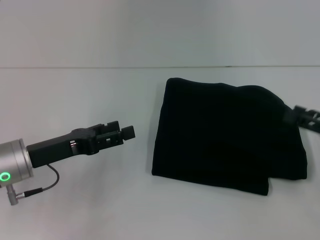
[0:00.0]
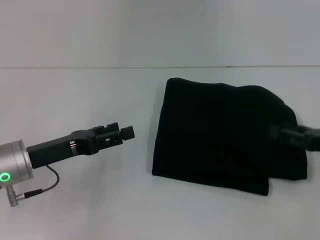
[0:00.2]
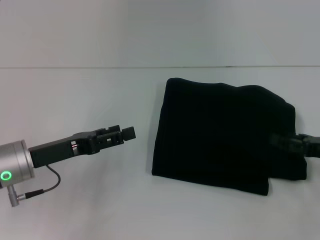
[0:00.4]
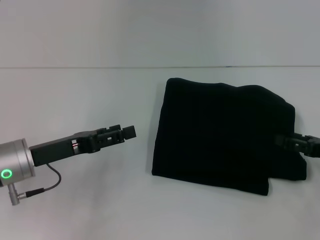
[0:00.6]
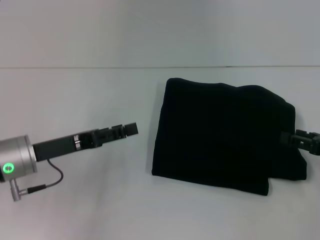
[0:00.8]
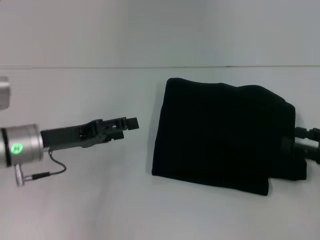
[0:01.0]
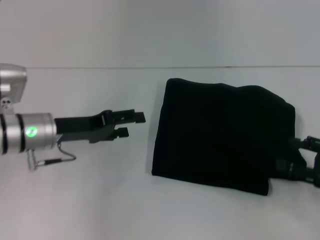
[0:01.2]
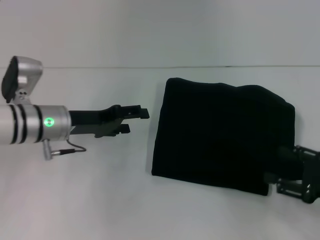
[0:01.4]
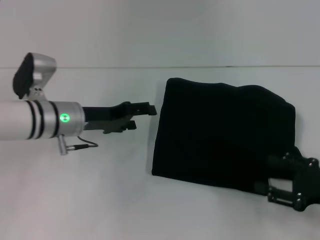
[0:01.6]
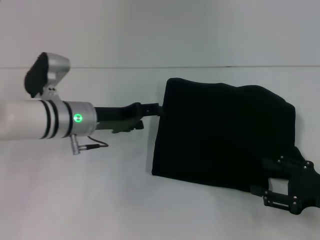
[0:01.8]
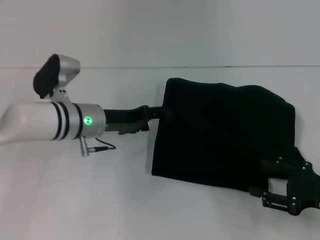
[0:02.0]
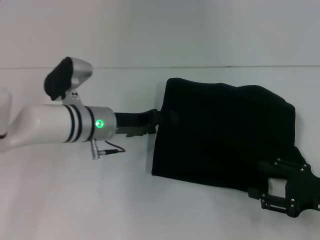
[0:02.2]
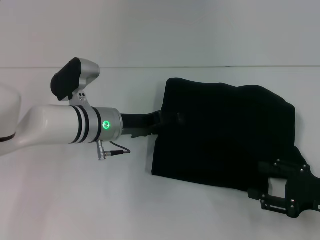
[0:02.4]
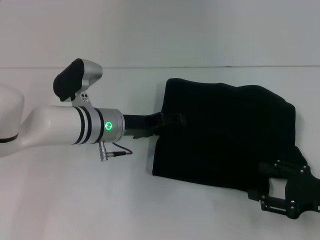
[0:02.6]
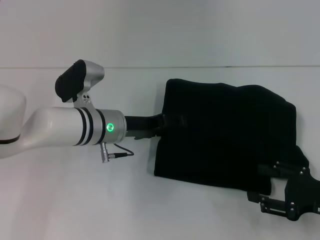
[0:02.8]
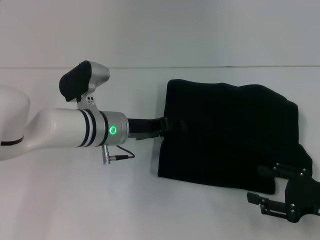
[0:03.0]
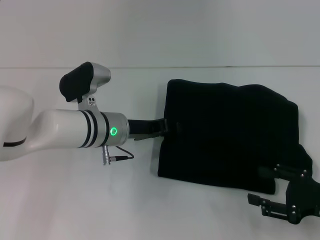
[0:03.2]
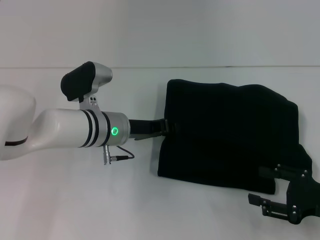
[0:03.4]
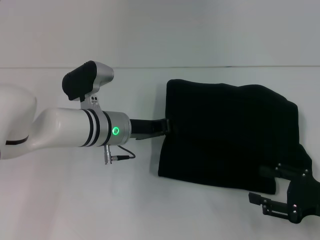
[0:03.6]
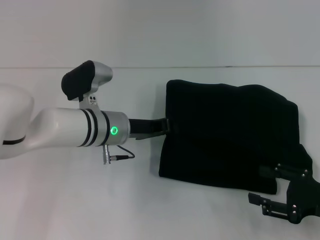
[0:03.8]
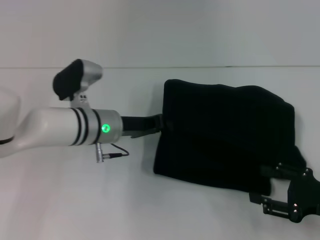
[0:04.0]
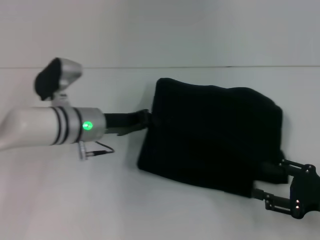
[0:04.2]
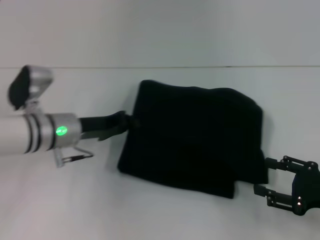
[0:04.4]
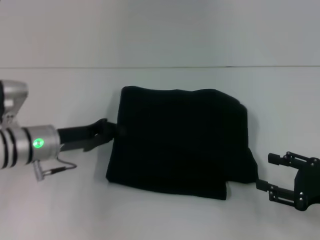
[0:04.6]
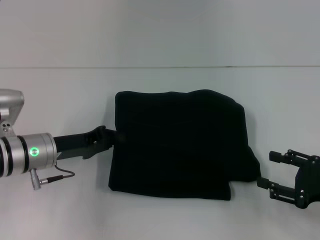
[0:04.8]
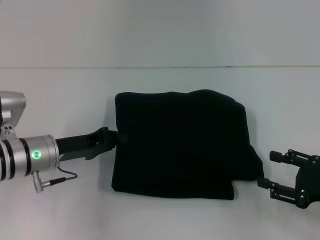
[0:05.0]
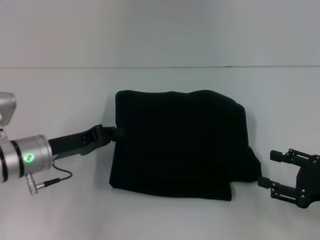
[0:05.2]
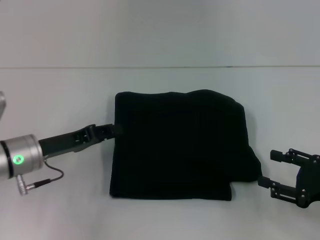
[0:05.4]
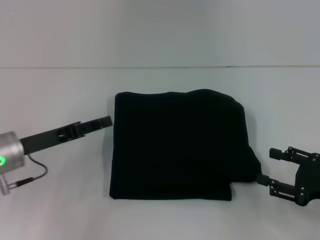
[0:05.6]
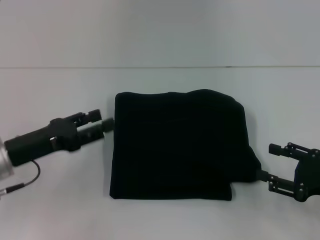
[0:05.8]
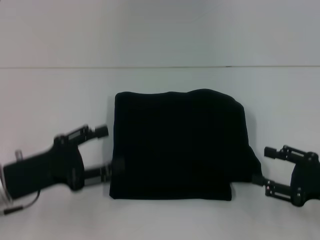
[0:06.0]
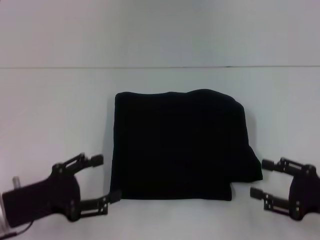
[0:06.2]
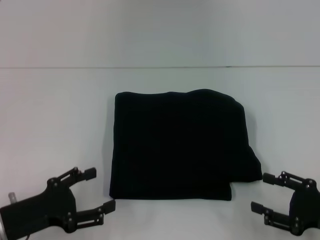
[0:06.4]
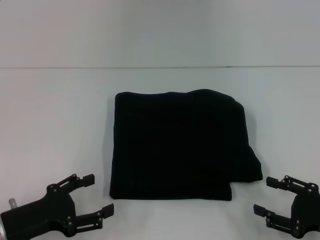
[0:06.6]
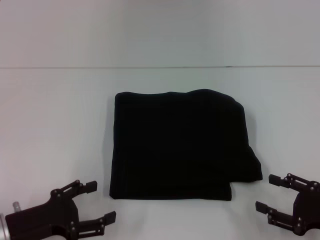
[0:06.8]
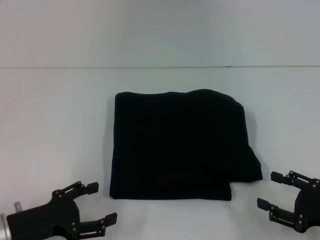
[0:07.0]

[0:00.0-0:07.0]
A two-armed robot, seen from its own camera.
0.0 to 1.4 s: The right gripper moves some 5 cm. Meanwhile the left gripper moves forward, roughly 10 cm.
1.4 to 2.8 s: The left gripper is displaced to the right by approximately 10 cm.
2.8 to 4.2 s: The left gripper closes its fingers.
4.2 to 5.6 s: The left gripper is displaced to the left and backward by some 15 cm.
5.6 to 7.0 s: The left gripper shifts about 10 cm backward, and opens up.

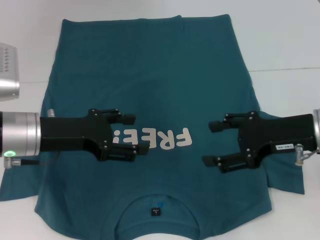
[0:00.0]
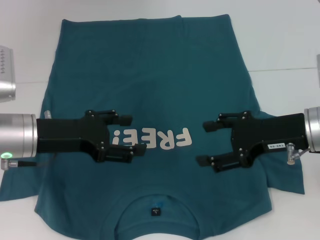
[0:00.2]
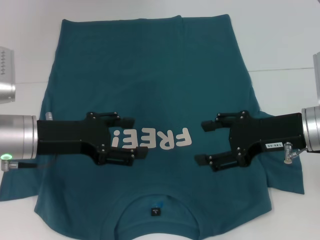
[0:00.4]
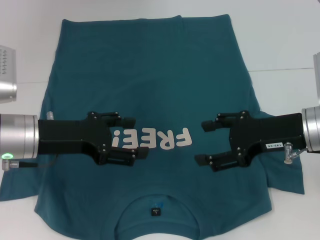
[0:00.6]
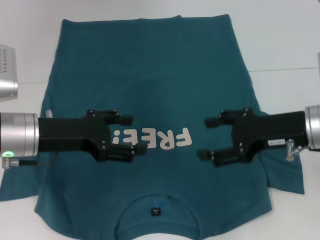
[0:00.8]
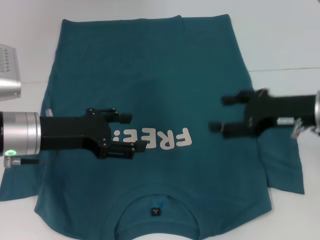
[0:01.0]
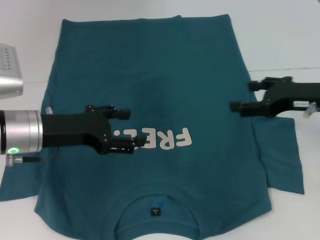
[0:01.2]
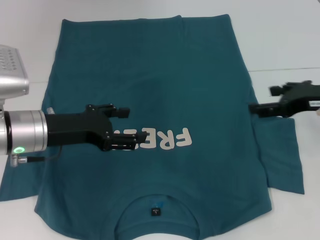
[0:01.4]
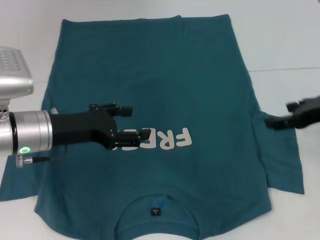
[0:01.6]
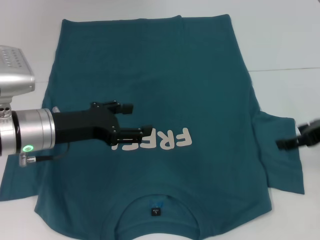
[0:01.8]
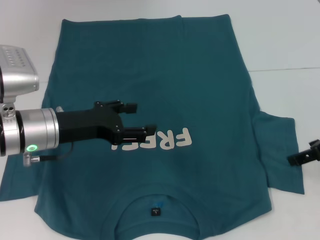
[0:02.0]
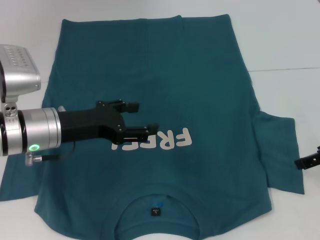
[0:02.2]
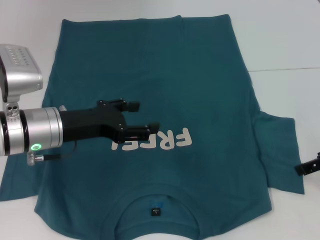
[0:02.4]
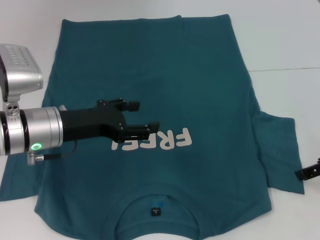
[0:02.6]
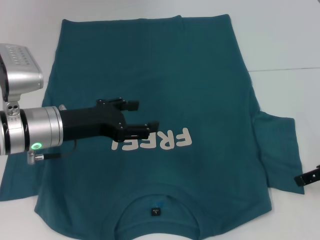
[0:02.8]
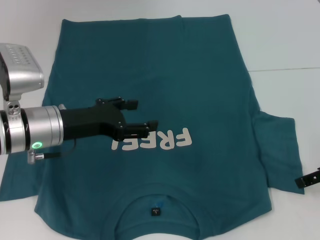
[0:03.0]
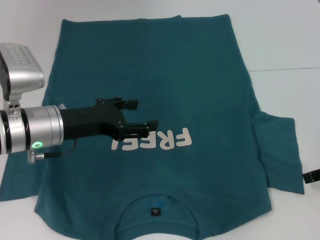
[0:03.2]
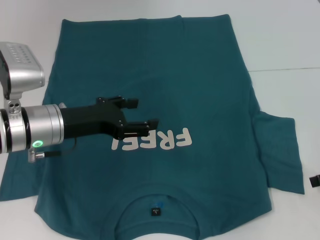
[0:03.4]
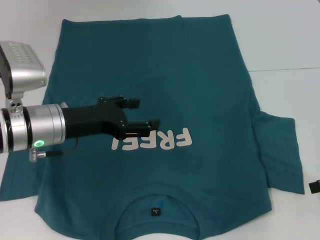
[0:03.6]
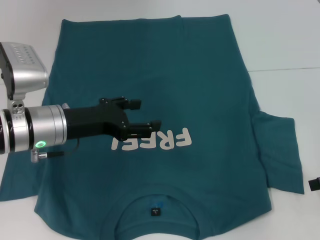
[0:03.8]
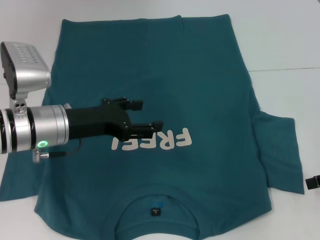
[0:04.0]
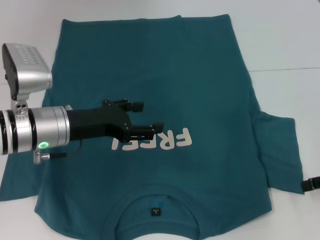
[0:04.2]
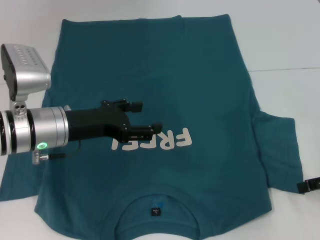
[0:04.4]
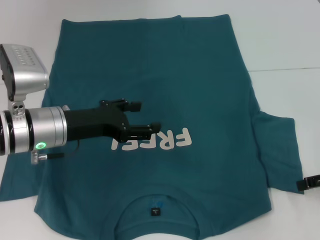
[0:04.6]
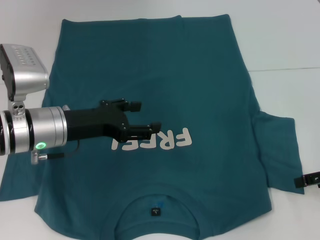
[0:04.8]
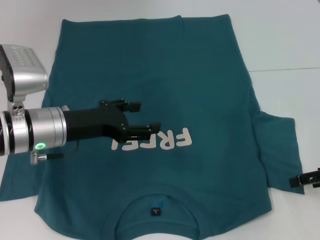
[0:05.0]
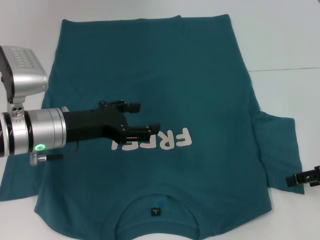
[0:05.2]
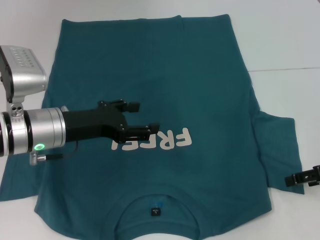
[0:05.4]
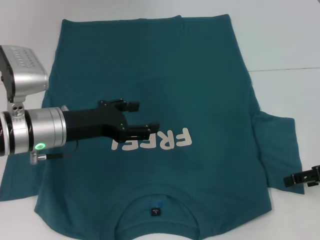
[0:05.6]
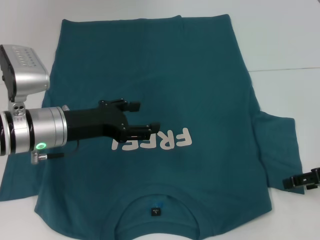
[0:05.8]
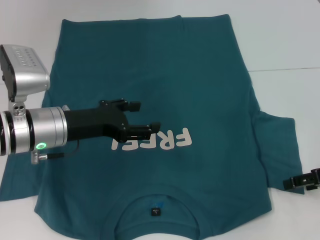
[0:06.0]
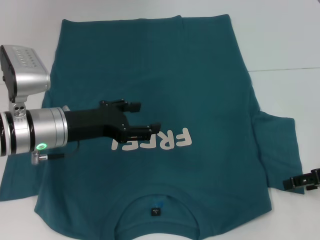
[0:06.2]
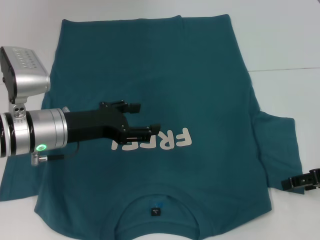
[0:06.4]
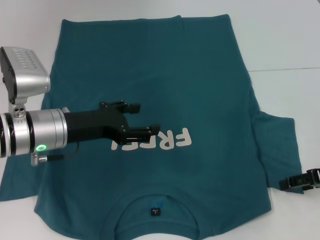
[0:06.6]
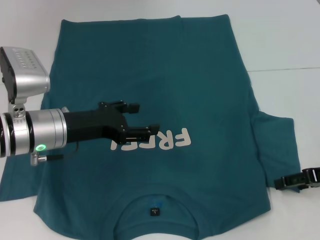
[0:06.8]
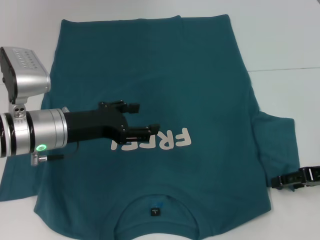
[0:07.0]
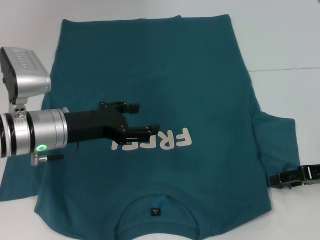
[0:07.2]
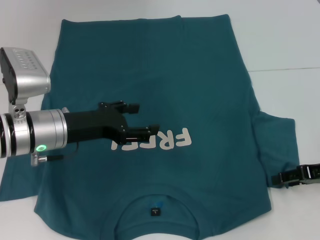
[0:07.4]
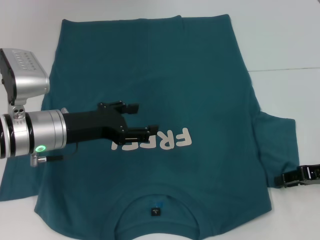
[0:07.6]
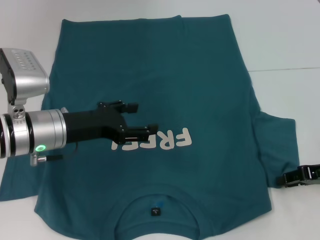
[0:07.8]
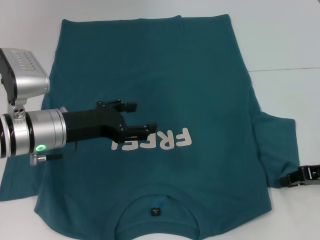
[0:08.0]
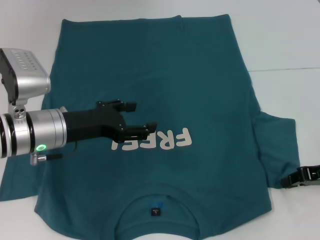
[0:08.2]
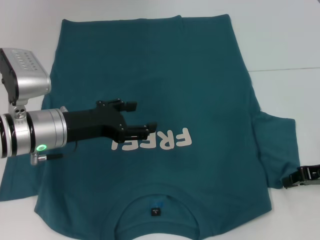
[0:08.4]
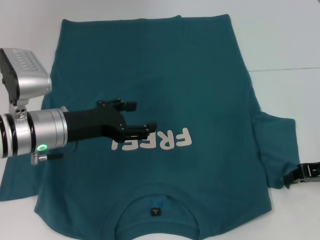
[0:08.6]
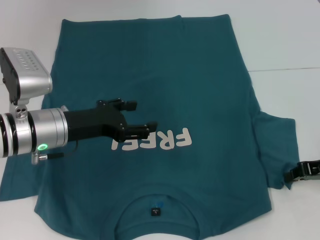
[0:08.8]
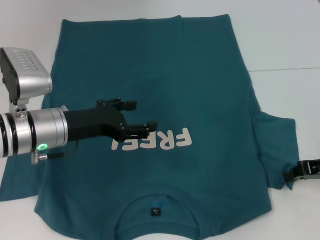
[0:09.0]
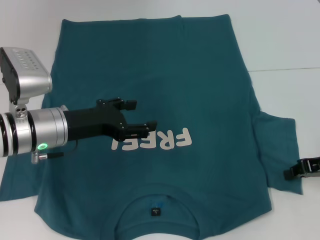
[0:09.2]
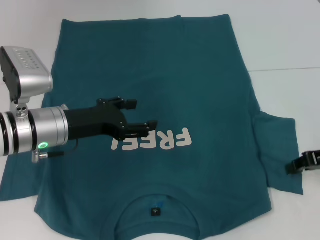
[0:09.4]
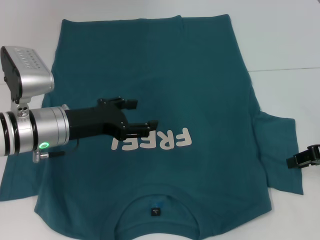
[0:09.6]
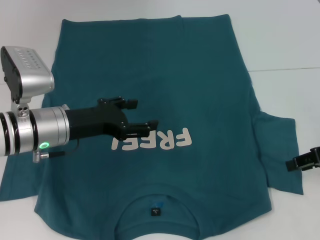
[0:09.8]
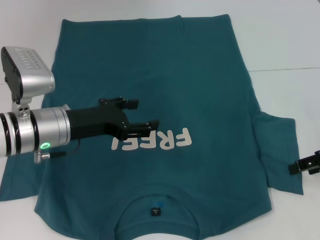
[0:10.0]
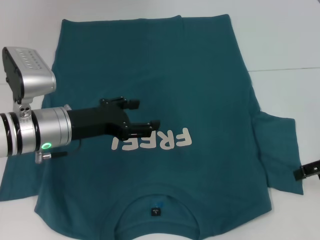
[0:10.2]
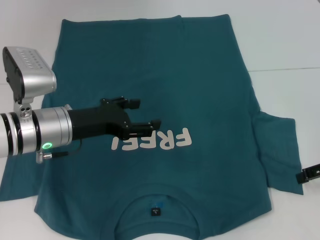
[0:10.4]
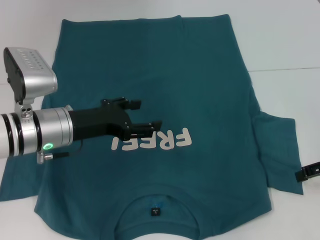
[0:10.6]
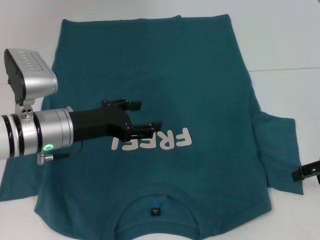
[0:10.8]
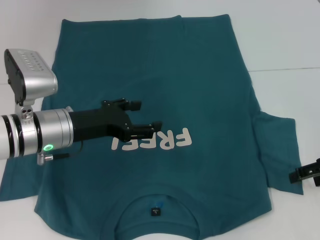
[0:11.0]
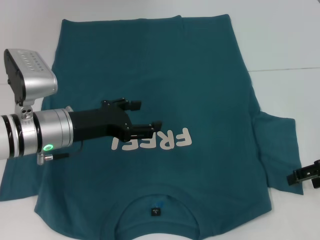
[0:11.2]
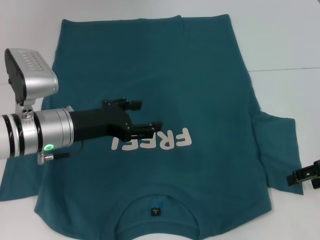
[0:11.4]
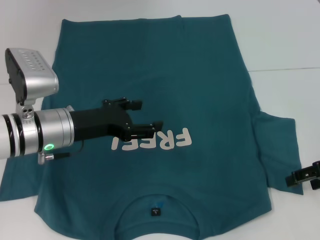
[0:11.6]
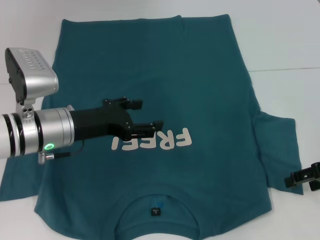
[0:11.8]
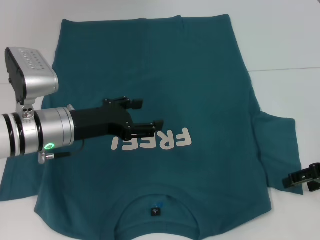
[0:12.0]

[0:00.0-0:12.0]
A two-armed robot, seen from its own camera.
0.0 to 1.6 s: The right gripper shifts some 5 cm to the right.
3.0 to 6.0 s: There are only small adjustments of the grippers.
6.0 to 7.6 s: The grippers move only a little.
7.6 to 9.0 s: The right gripper closes its fingers.
9.0 to 10.4 s: The right gripper opens its fingers.
10.4 to 12.0 s: The grippers move only a little.

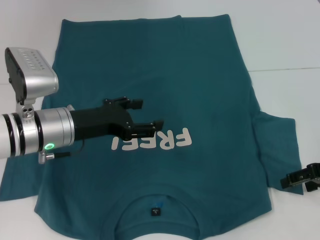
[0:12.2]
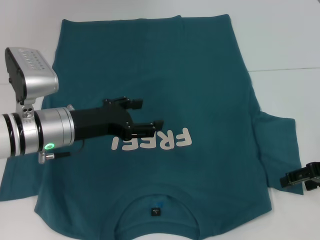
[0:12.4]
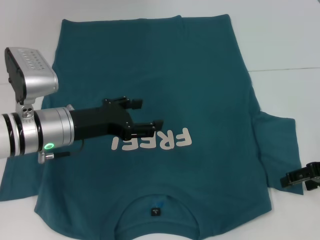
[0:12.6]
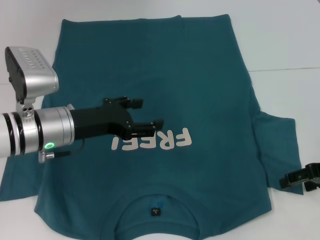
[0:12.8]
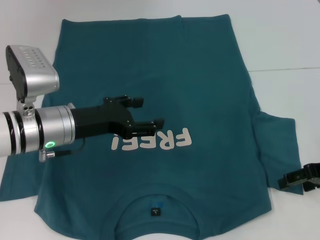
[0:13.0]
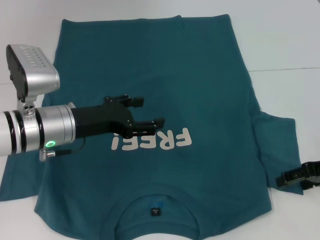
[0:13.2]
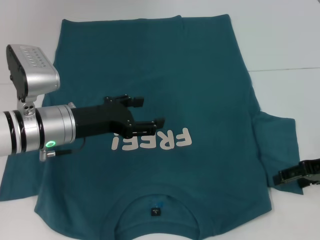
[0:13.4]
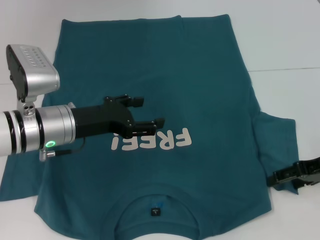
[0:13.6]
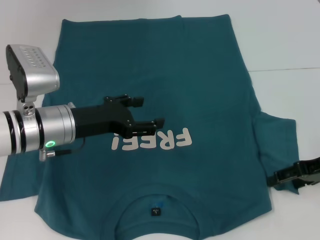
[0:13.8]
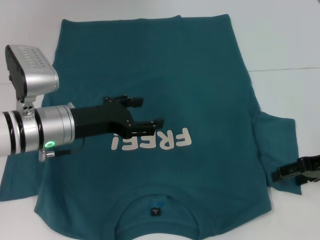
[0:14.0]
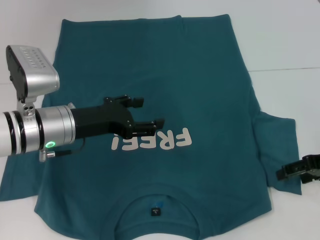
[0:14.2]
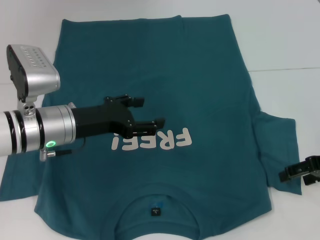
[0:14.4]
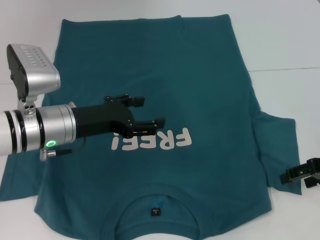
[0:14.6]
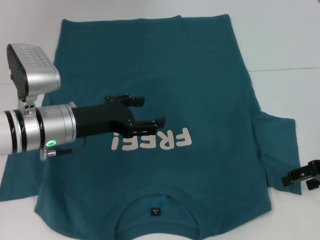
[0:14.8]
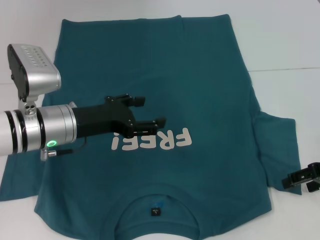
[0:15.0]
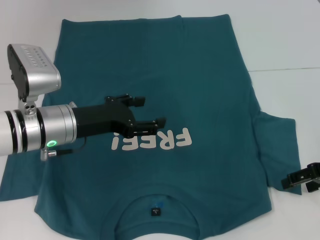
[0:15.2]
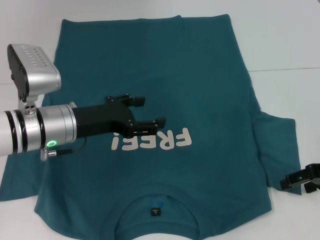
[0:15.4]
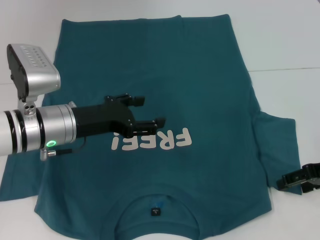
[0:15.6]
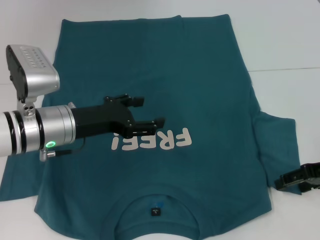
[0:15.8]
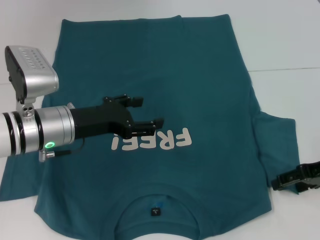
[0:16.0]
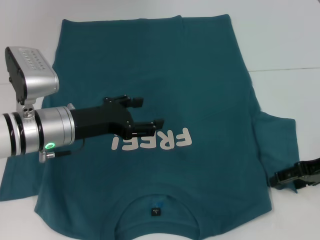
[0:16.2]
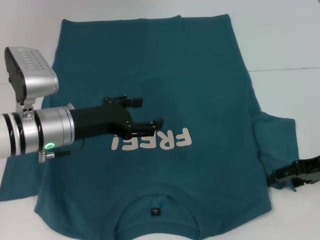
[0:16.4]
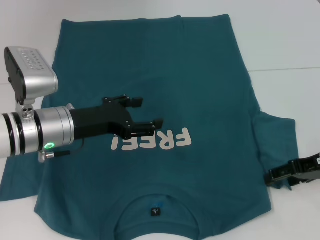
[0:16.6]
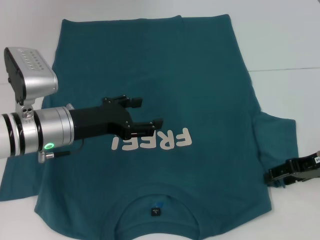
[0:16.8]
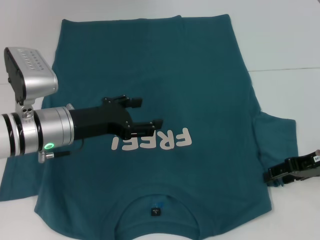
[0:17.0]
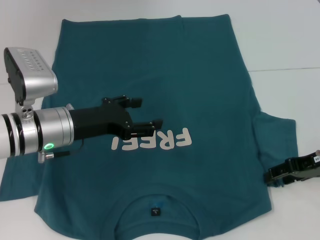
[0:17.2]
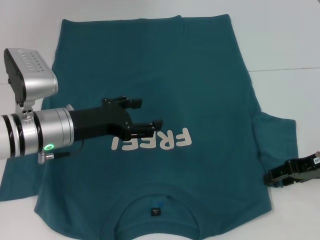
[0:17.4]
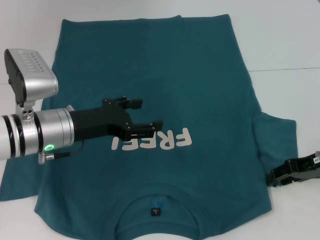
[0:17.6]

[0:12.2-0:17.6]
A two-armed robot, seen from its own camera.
12.2 to 16.2 s: There are only small adjustments of the grippers.
16.2 to 17.6 s: Both grippers stay put.
